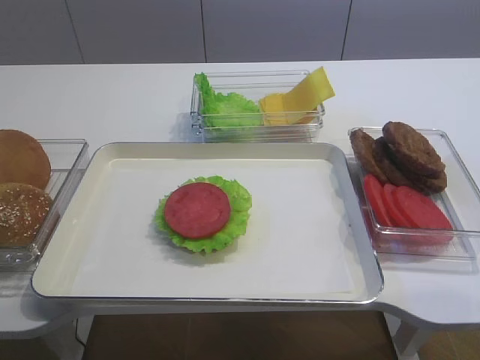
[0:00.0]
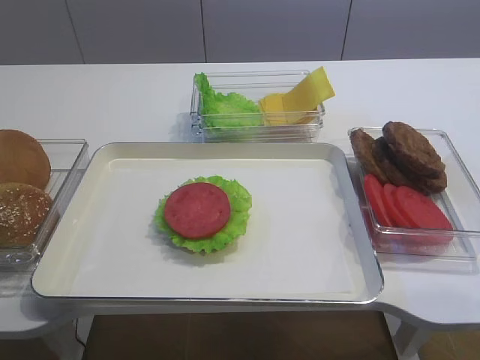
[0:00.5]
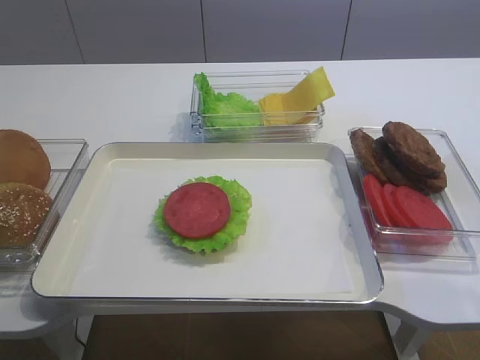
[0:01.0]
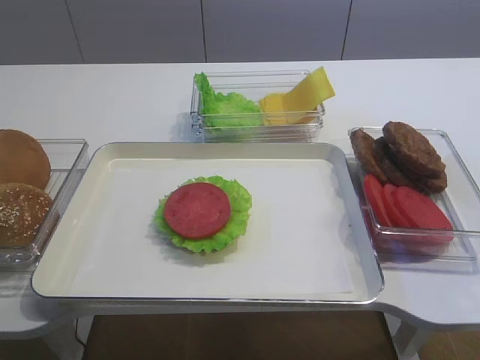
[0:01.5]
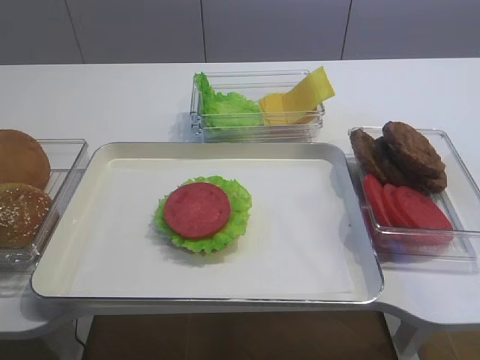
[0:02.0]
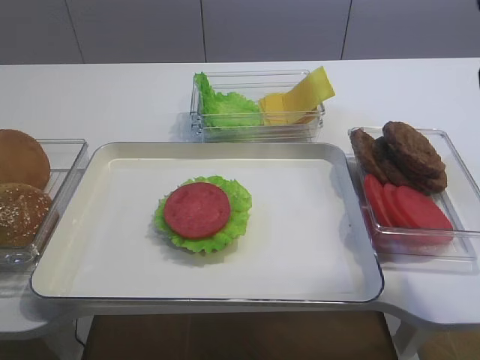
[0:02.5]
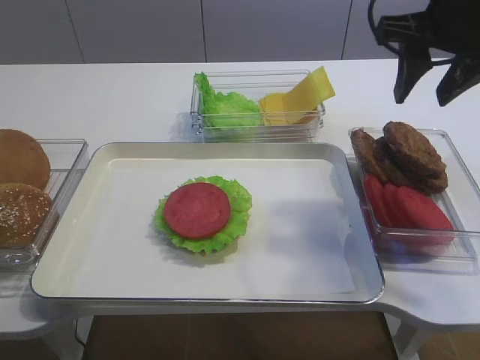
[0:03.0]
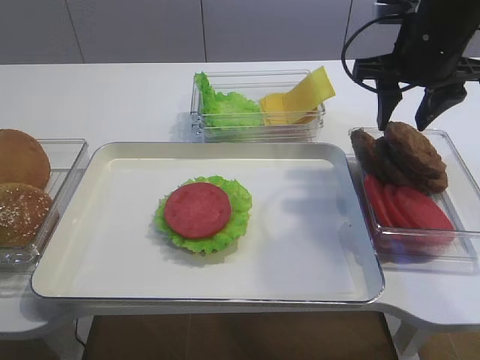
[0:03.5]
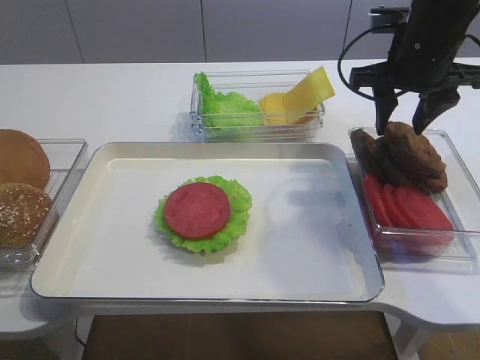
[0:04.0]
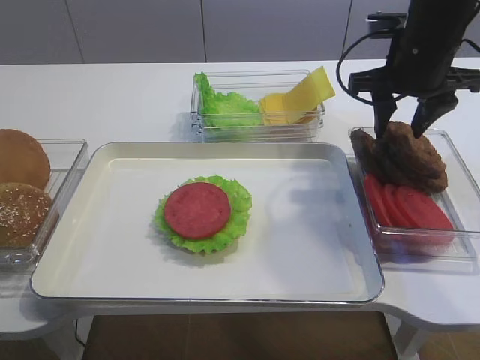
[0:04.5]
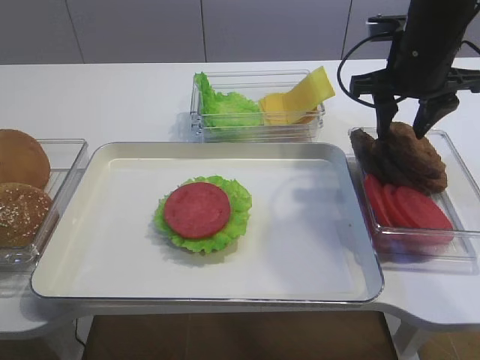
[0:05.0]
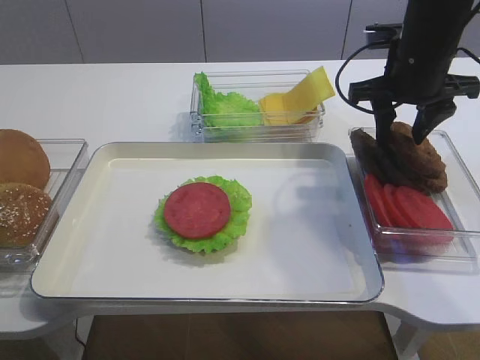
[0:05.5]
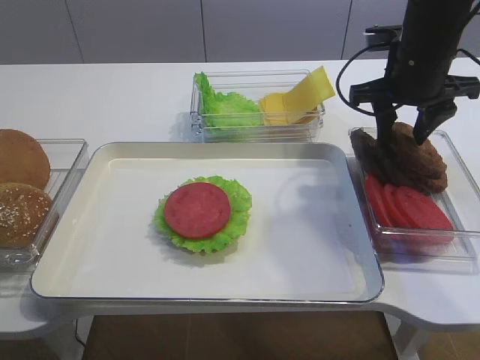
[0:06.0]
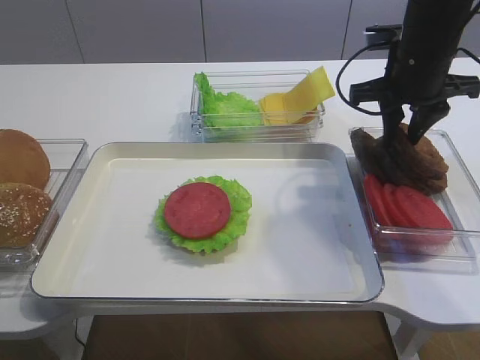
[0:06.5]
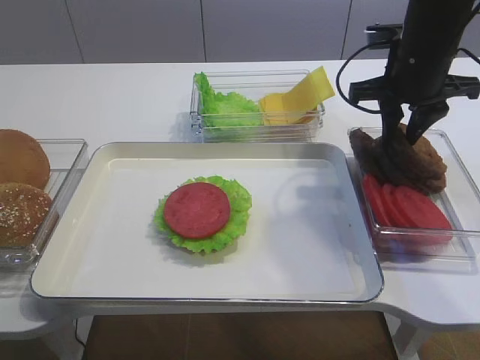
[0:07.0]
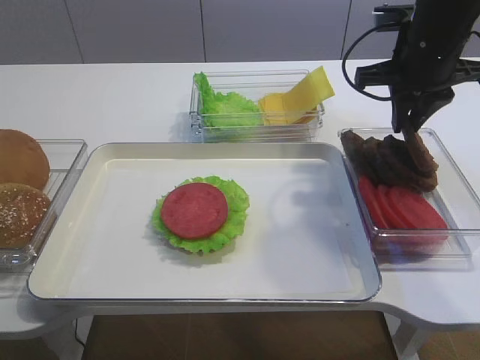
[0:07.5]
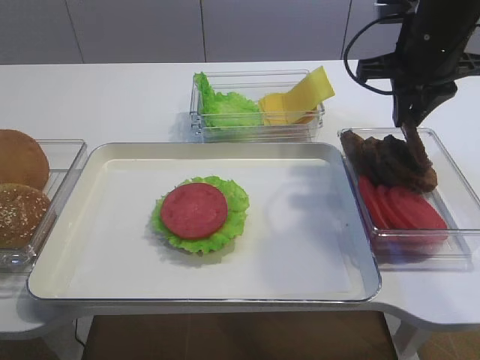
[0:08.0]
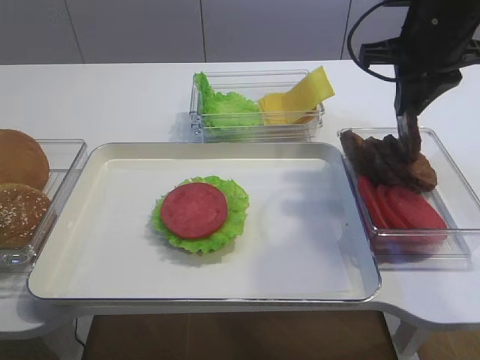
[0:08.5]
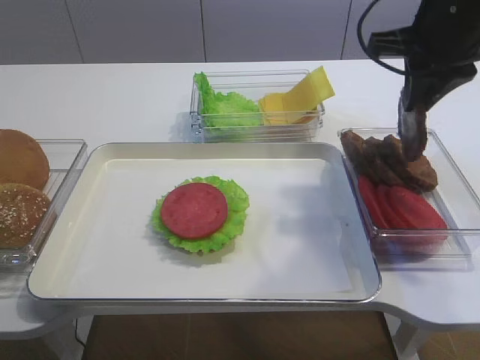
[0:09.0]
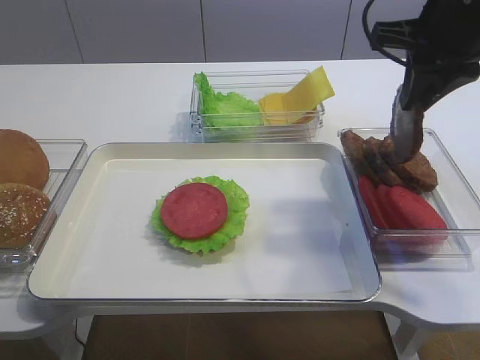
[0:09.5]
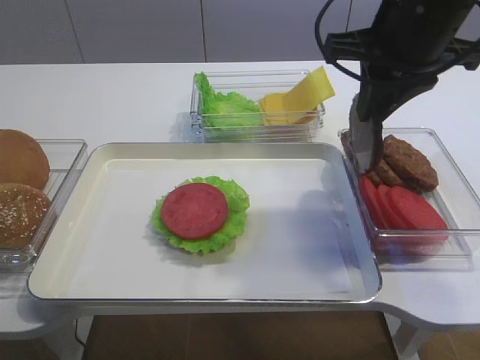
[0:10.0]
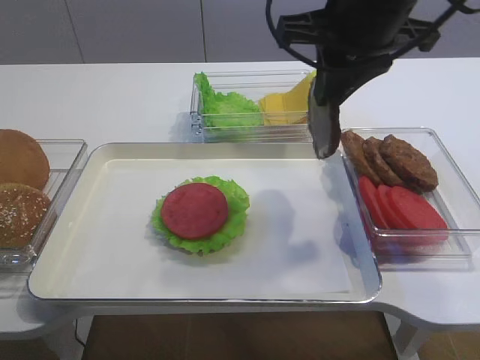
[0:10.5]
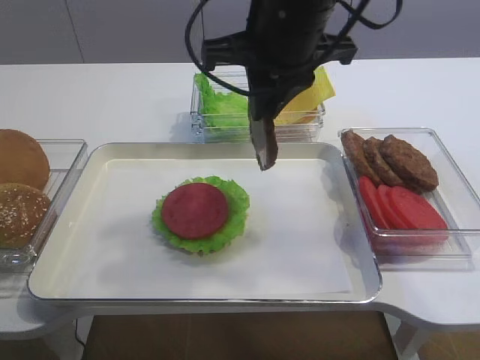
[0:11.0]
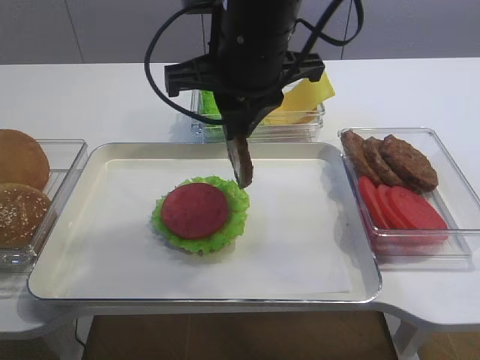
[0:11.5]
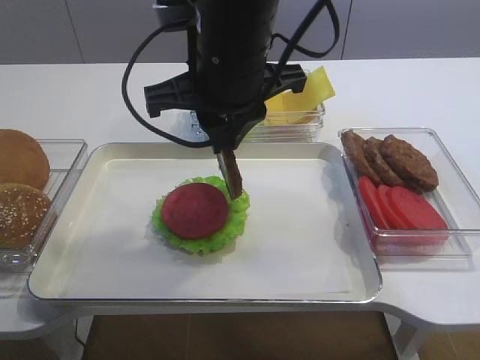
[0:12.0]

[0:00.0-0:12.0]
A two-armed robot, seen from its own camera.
Step, 0:00.0 to 0:10.0: Pick up the cutlet with the right gripper.
0:02.0 to 0:04.0: The right gripper goes some 25 cm forward.
0:04.0 to 0:06.0: The grippers make only small movements.
0:06.0 to 0:08.0: The right gripper closes.
0:08.0 to 0:10.0: The right gripper heads backward, covering approximately 5 cm.
0:10.0 to 0:12.0: The right gripper travels to the left by roughly 15 cm.

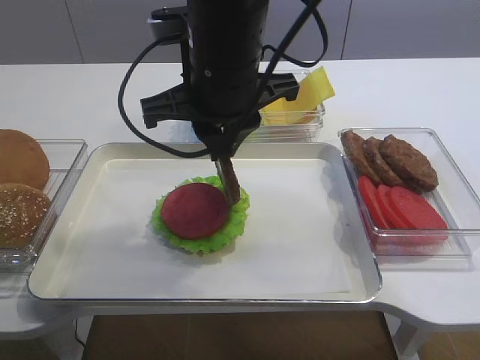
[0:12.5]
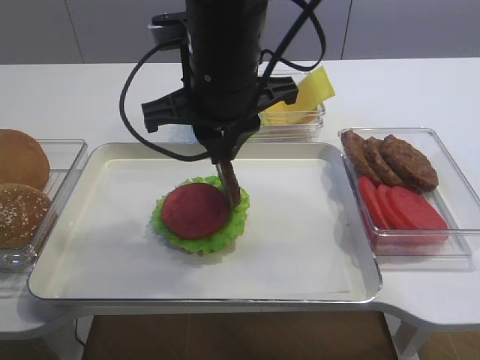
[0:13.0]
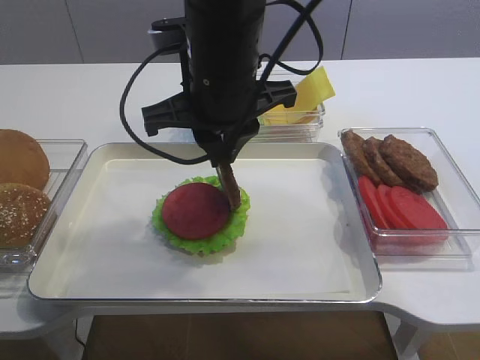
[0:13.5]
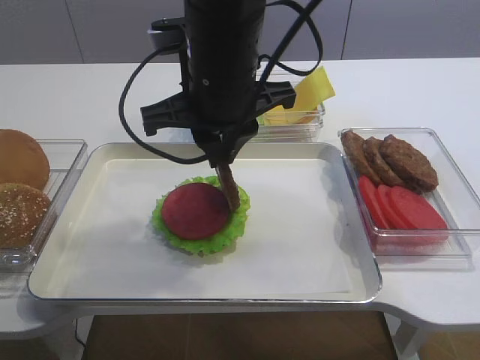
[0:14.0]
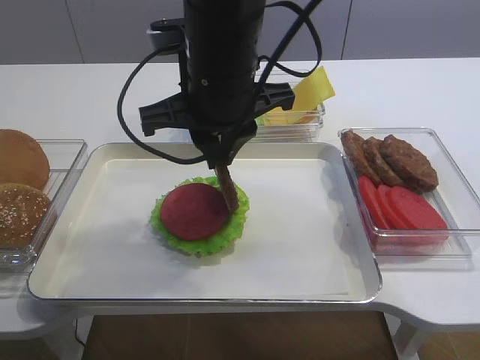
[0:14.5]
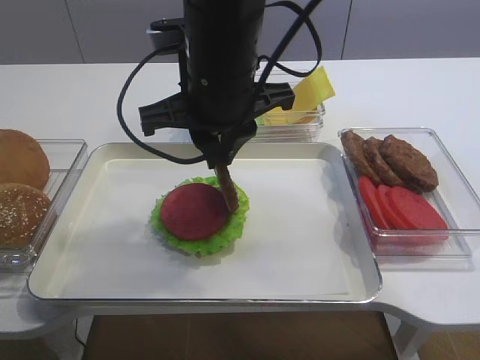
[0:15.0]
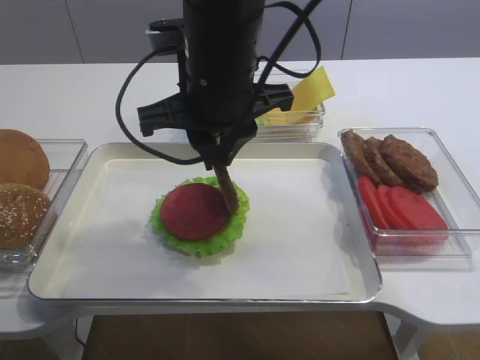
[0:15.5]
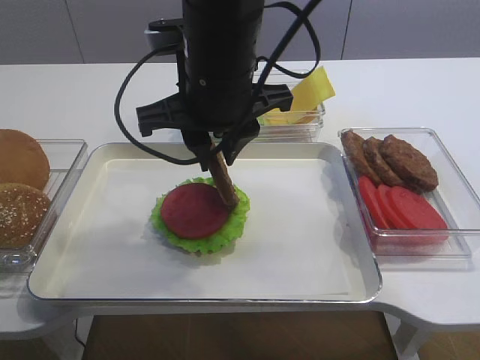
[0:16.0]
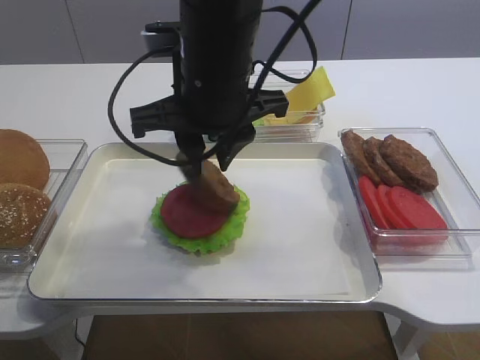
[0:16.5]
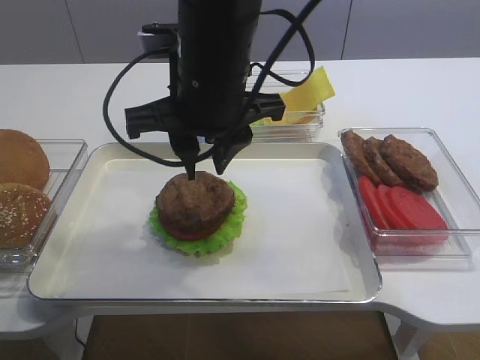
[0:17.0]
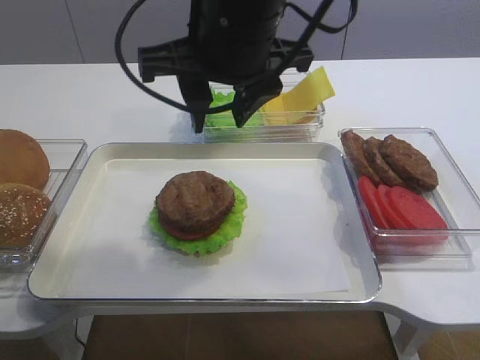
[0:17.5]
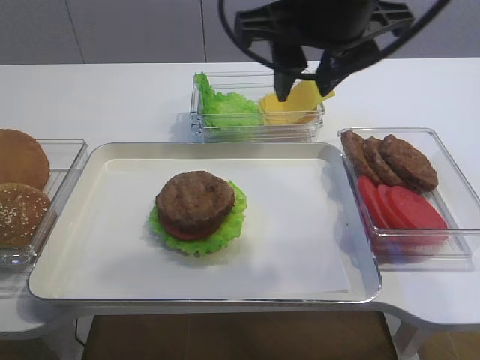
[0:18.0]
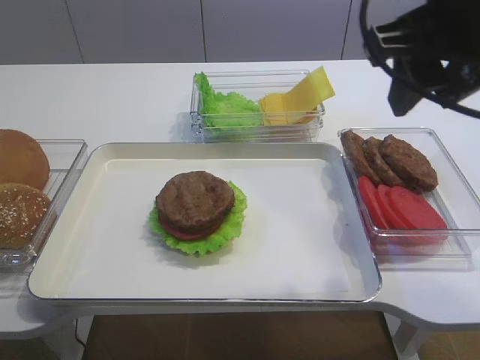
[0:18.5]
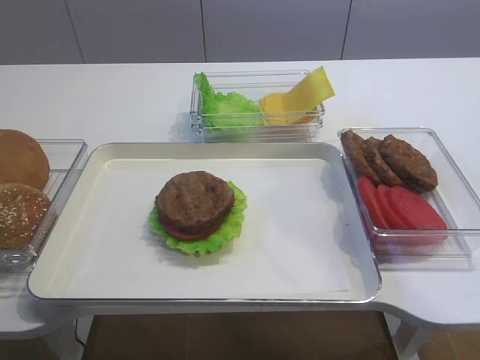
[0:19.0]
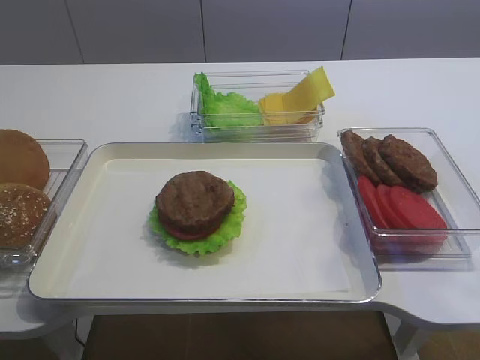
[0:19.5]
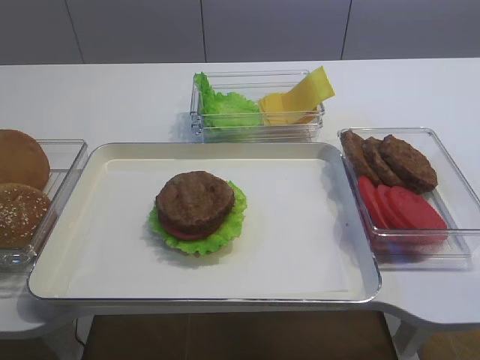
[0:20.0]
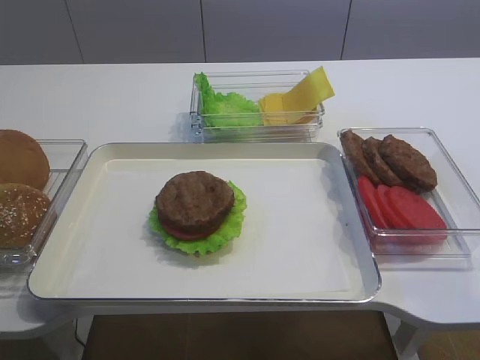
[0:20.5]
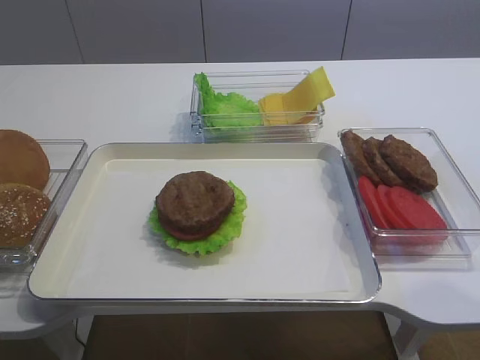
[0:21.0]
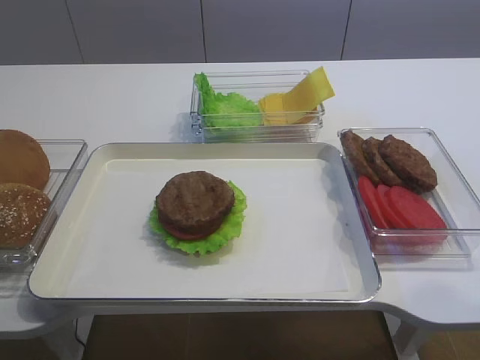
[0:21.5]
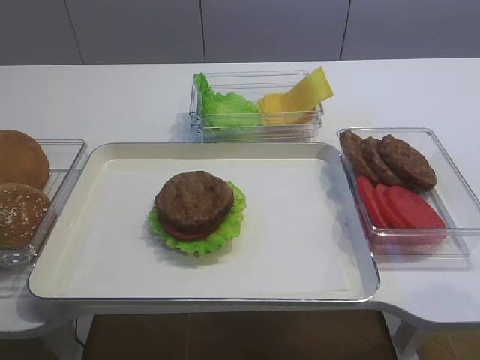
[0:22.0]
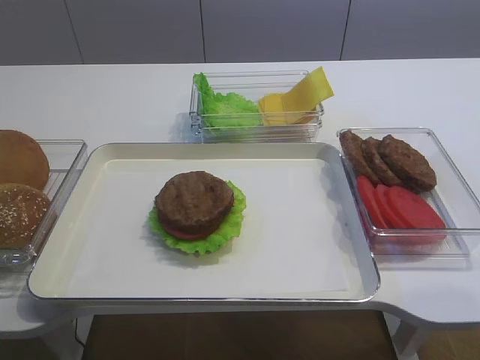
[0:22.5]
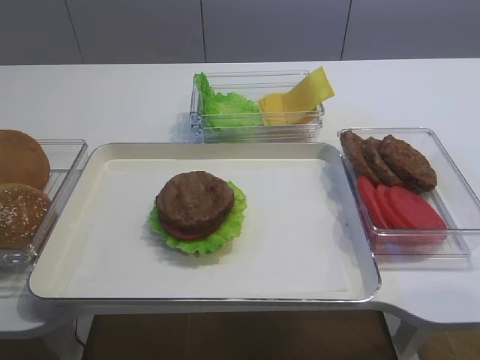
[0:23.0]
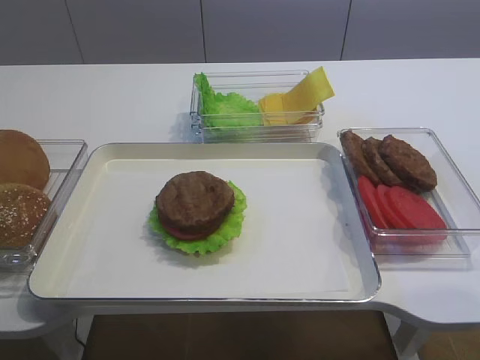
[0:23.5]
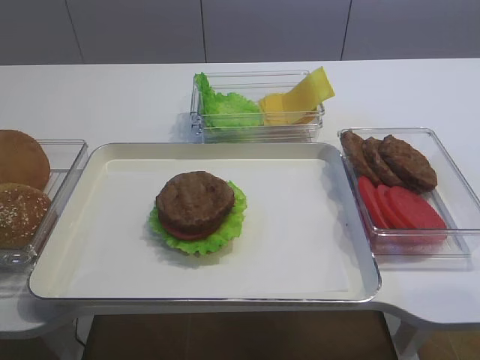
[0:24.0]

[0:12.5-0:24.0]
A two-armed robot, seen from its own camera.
Step, 0:12.5 to 0:17.0: Place the cutlet on the tomato slice with the right gripper.
0:12.5 to 0:14.5: Neither gripper changes place.
0:14.5 to 0:16.5: The right gripper opens its fingers.
0:16.5 to 0:18.5: The right gripper heads to the right and upward, covering about 20 cm, and opens.
0:18.5 to 0:20.0: The right gripper is displaced backward and to the right by roughly 20 cm.
0:20.0 to 0:22.0: The right gripper moves downward and backward, some 10 cm.

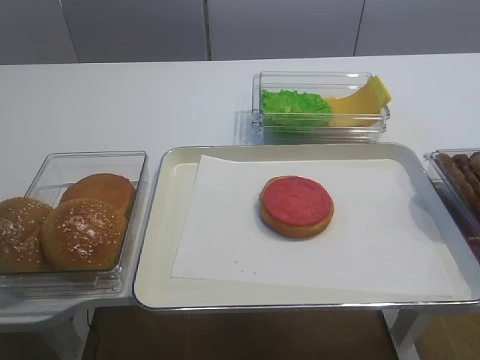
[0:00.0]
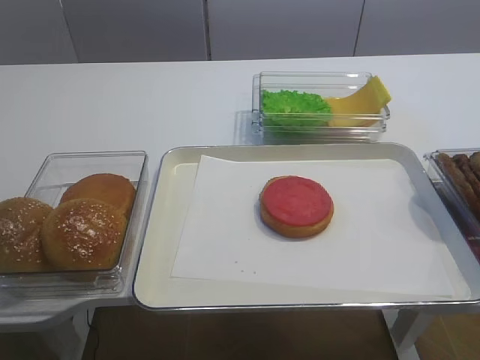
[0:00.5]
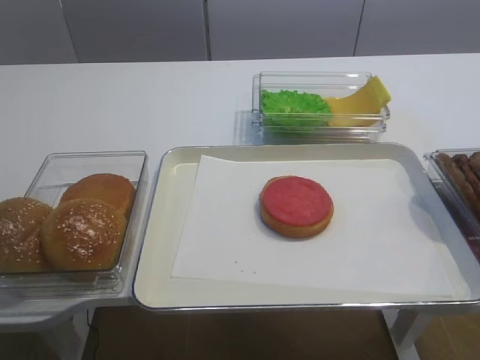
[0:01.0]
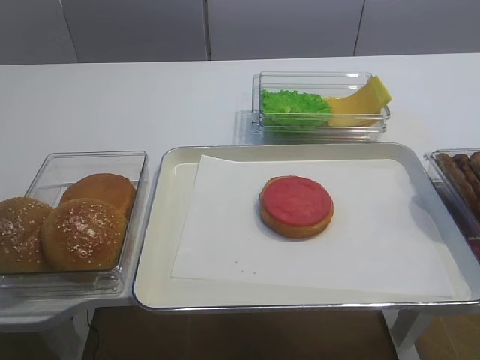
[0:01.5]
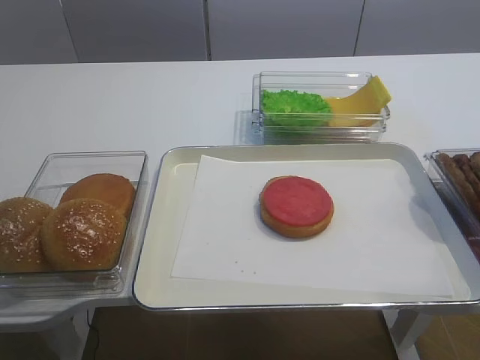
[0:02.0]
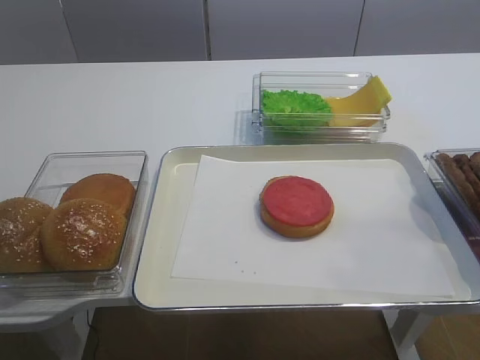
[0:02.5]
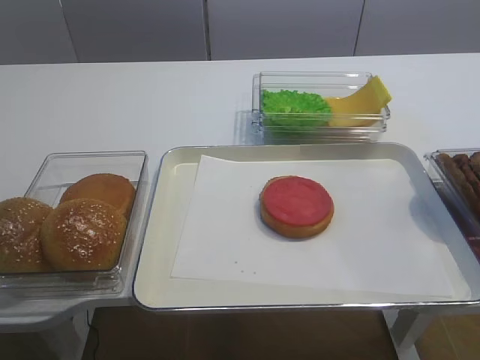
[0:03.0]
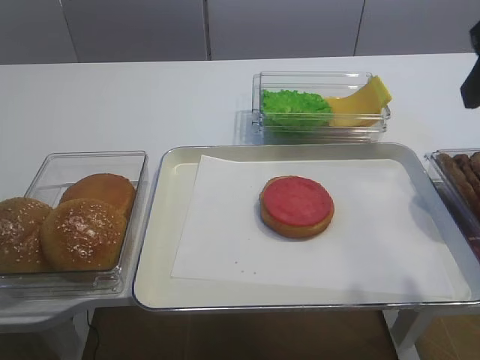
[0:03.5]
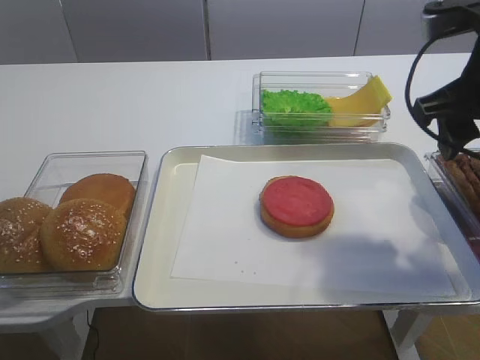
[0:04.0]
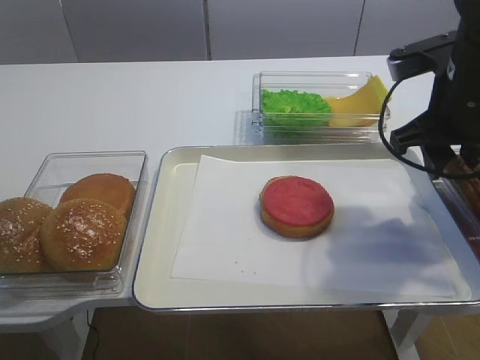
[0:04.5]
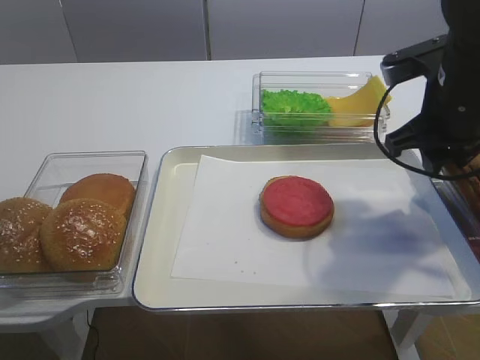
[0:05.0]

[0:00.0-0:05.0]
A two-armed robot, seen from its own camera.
0:02.5 to 0:05.0: The right gripper goes approximately 25 cm forward.
